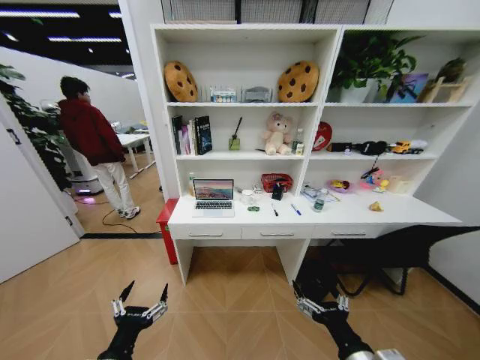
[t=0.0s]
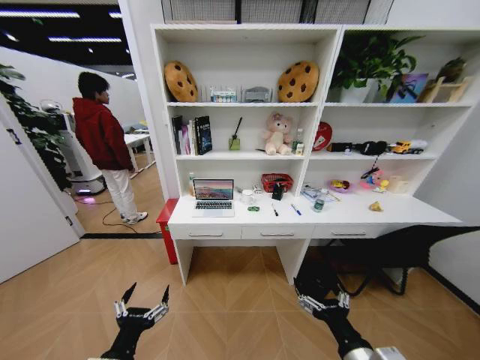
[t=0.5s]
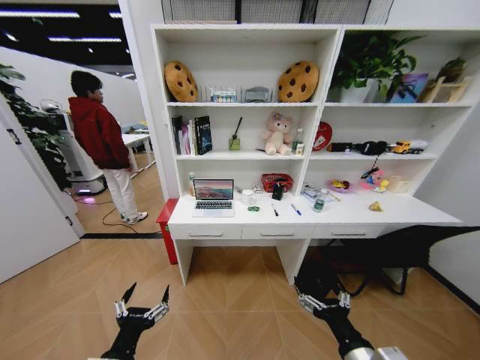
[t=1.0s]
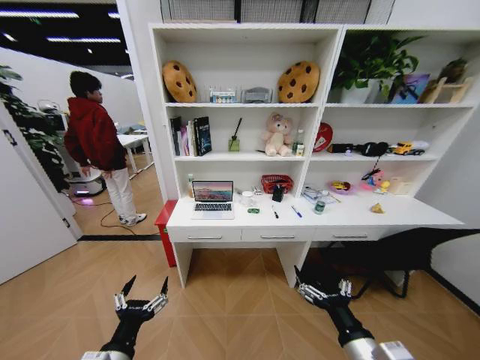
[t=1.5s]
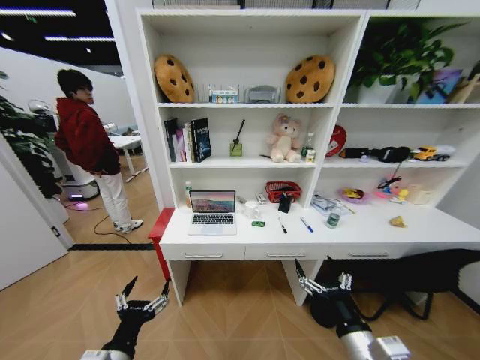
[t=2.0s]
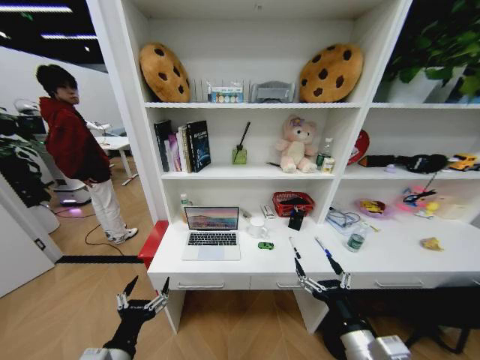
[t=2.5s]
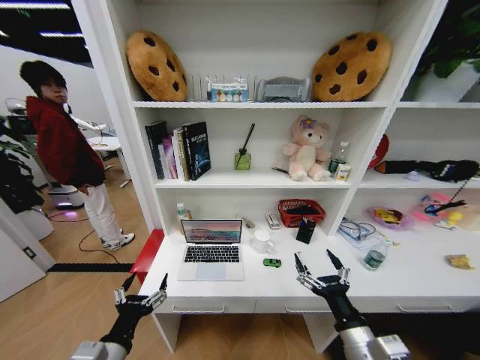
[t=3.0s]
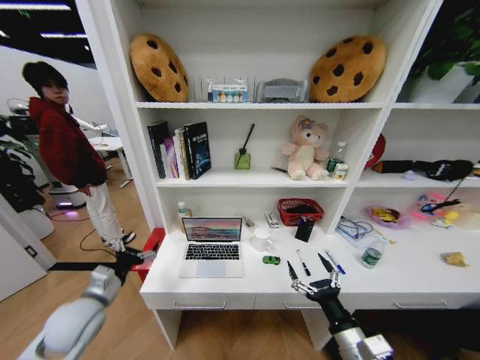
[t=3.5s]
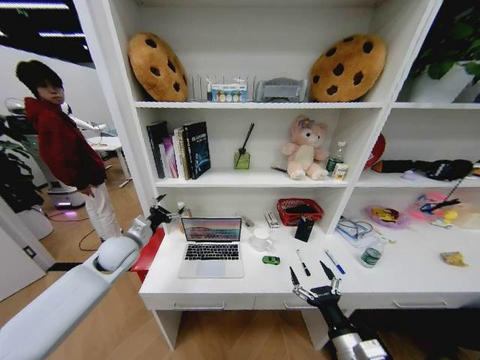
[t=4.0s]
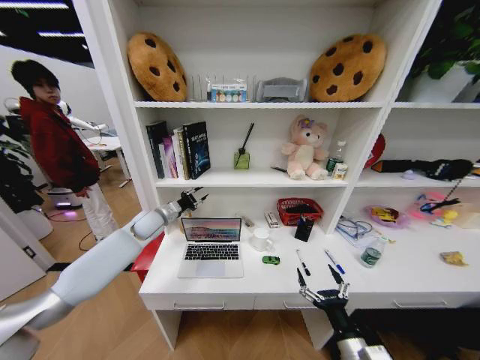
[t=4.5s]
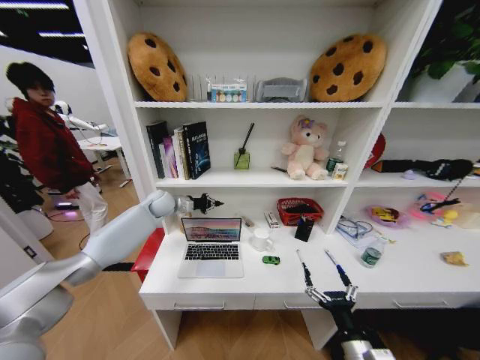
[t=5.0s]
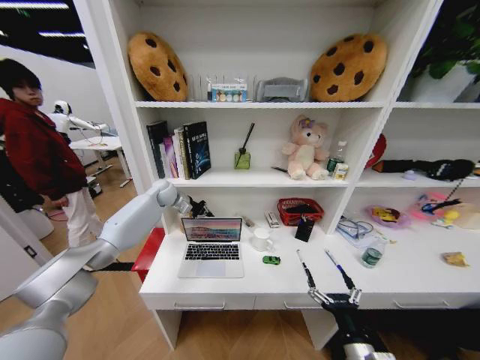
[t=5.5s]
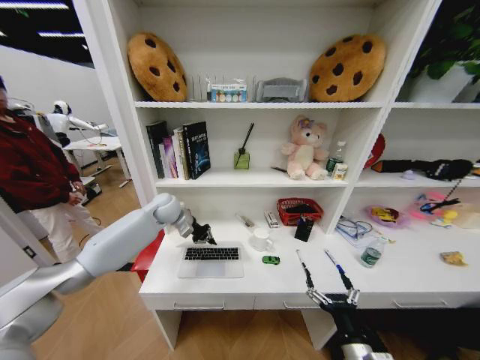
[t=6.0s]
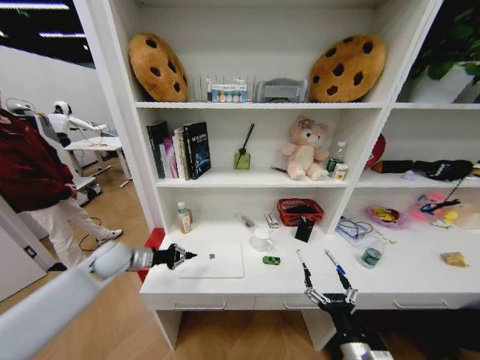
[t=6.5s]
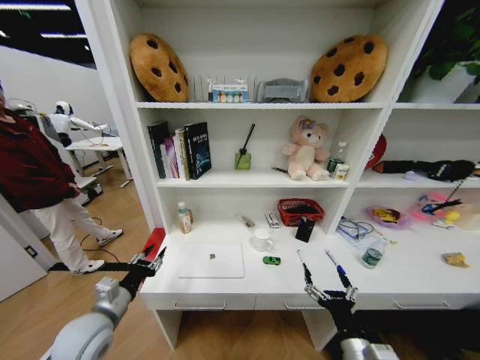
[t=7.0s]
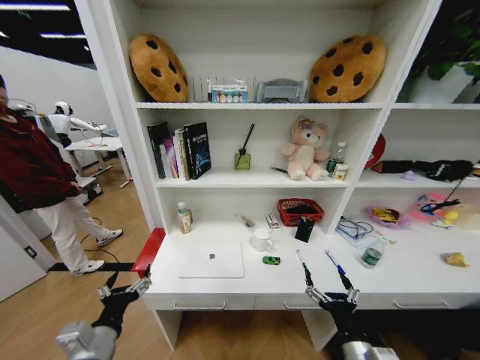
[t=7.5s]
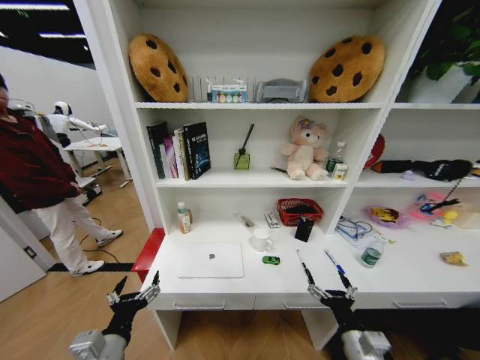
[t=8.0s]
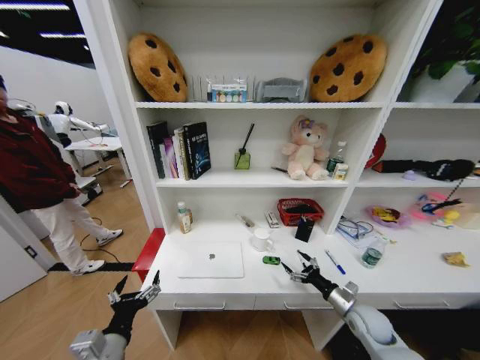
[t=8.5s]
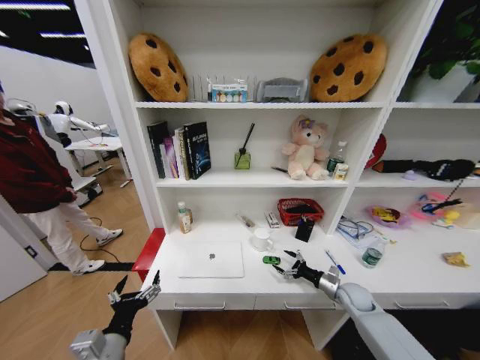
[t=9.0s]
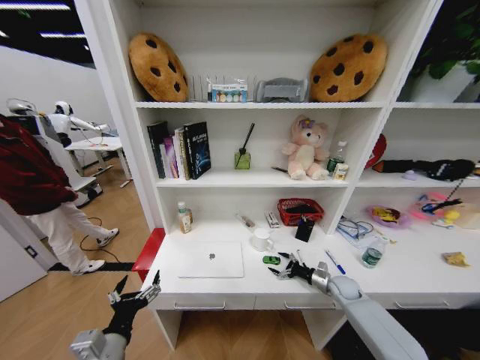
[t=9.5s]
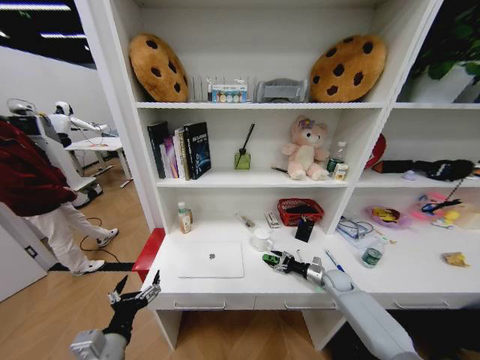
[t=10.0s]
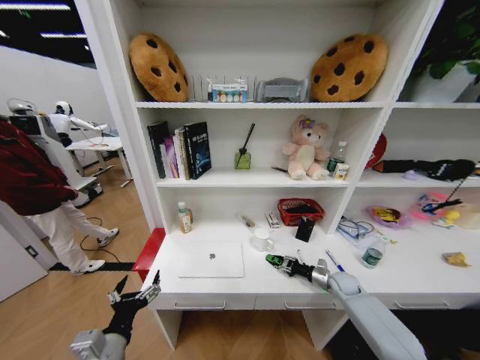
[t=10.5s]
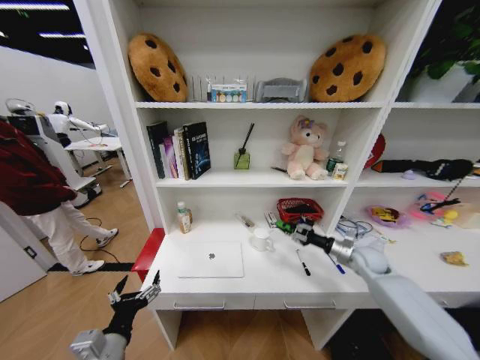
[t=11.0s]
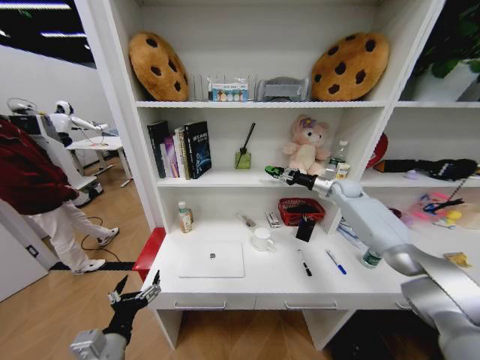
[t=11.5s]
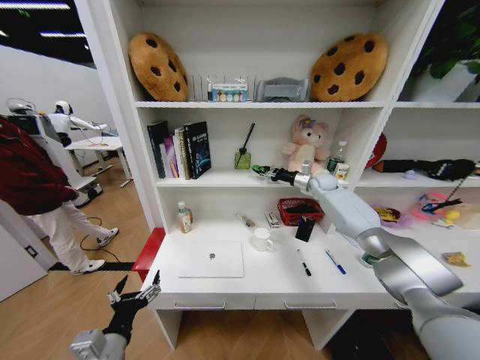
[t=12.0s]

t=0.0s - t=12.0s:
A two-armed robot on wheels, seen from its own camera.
Task of the whole recording: Organize the objects on the table.
t=2.0s - t=4.0s: The right gripper is displaced downward by roughly 5 cm, while the left gripper is displaced forward by roughly 30 cm.
t=4.0s - t=6.0s: The left gripper travels forward and to the right by some 20 cm, and closes its fingers.
t=6.0s - t=8.0s: The left gripper travels backward by approximately 40 cm, and opens its fingers.
t=8.0s - t=10.0s: The right gripper heads forward and to the right, covering about 30 cm.
t=10.0s - t=12.0s: The right gripper moves upward and forward, about 40 cm, and closes up.

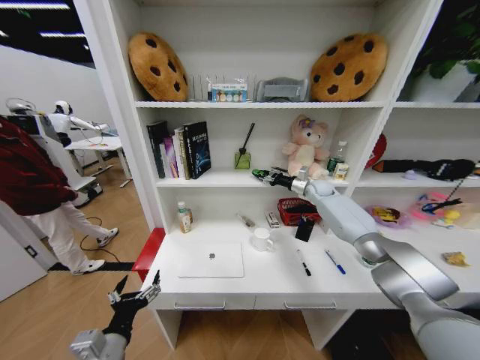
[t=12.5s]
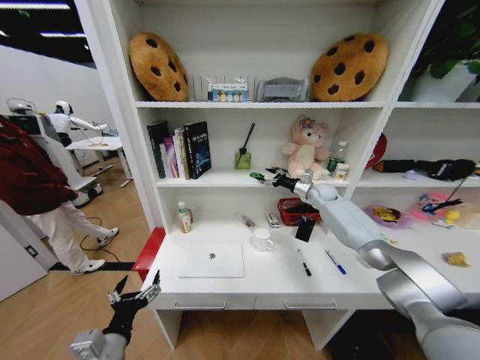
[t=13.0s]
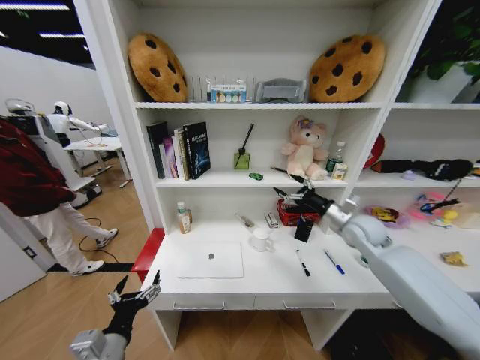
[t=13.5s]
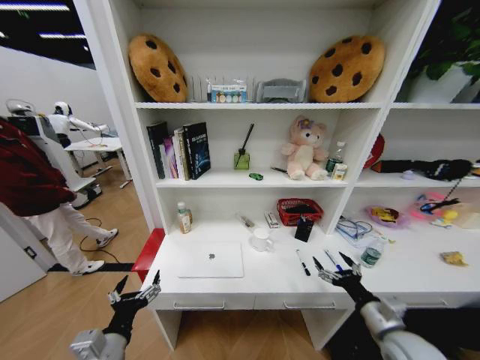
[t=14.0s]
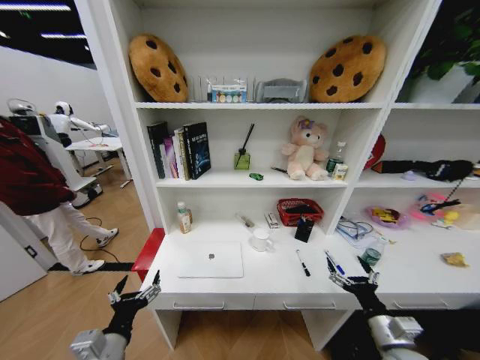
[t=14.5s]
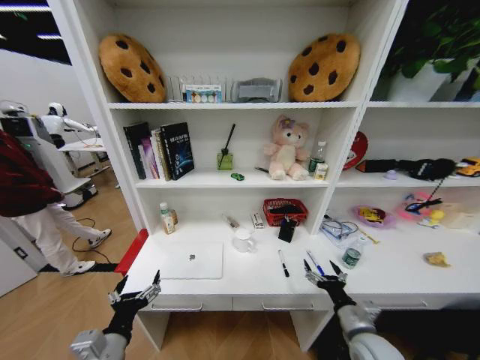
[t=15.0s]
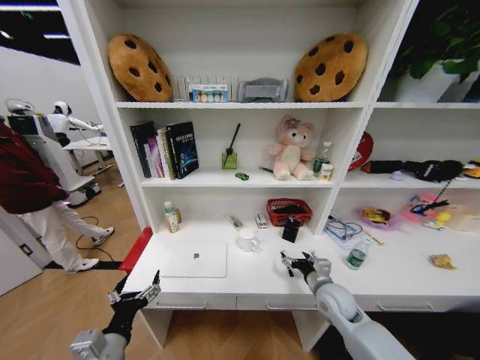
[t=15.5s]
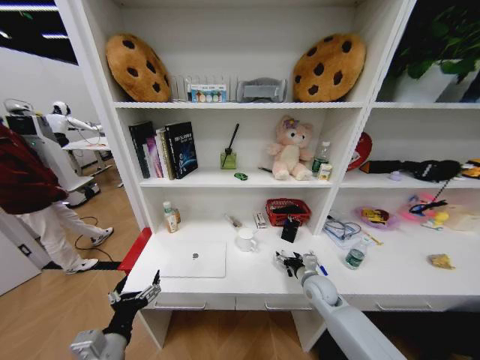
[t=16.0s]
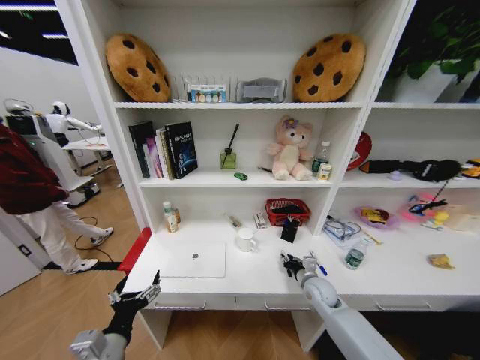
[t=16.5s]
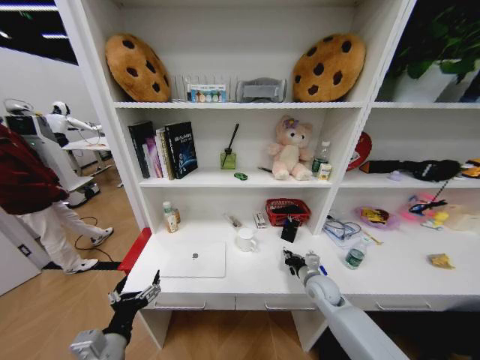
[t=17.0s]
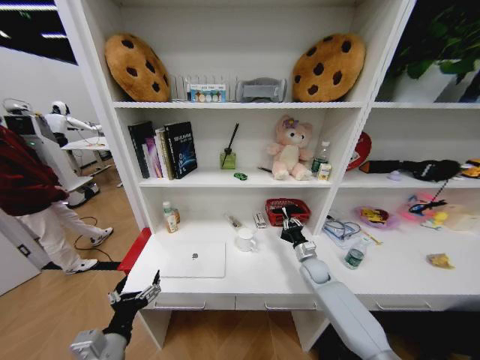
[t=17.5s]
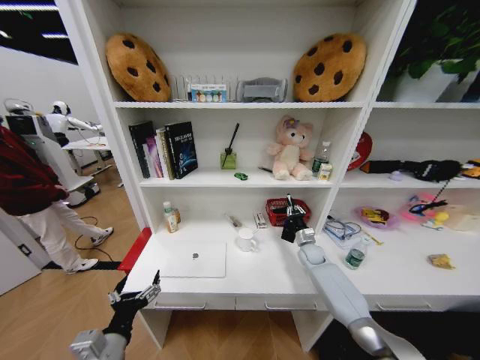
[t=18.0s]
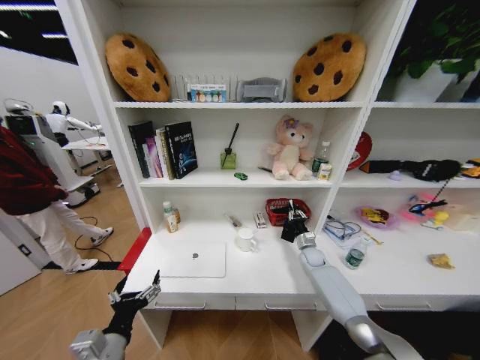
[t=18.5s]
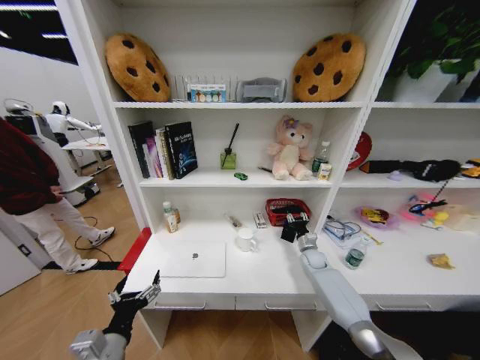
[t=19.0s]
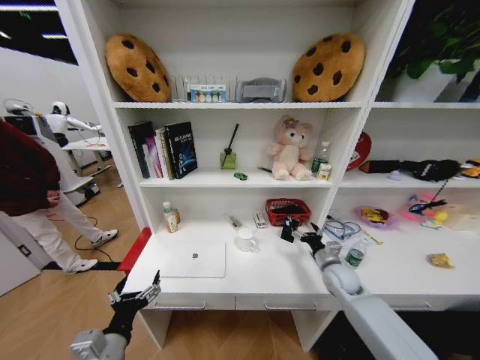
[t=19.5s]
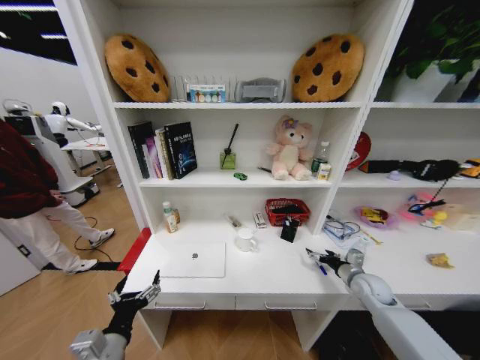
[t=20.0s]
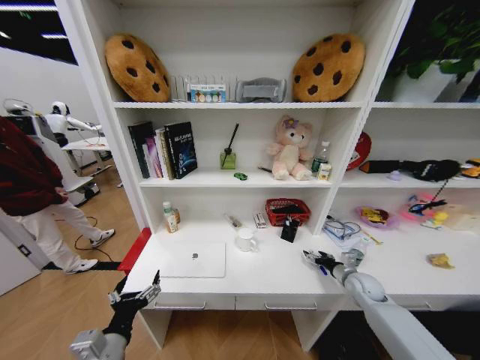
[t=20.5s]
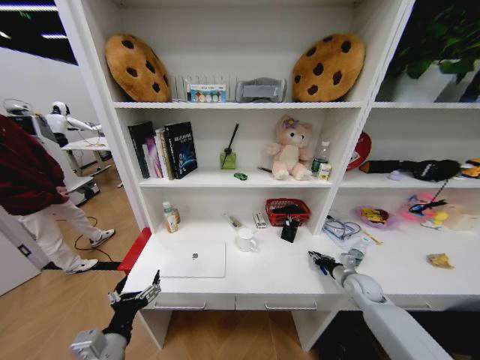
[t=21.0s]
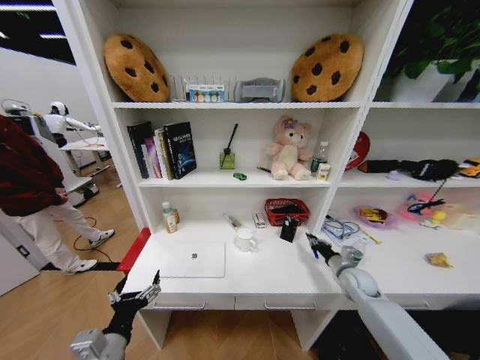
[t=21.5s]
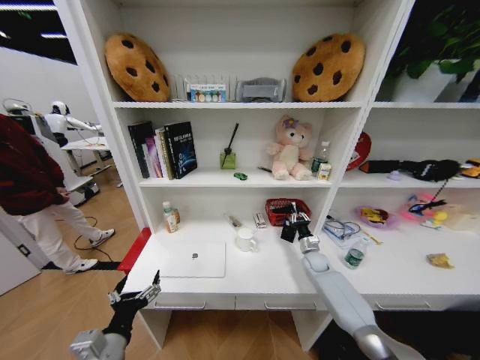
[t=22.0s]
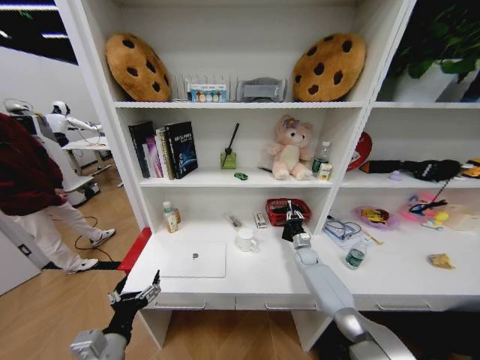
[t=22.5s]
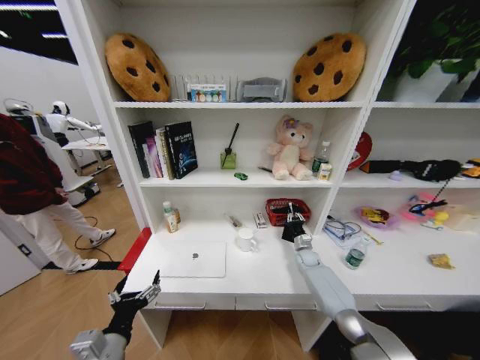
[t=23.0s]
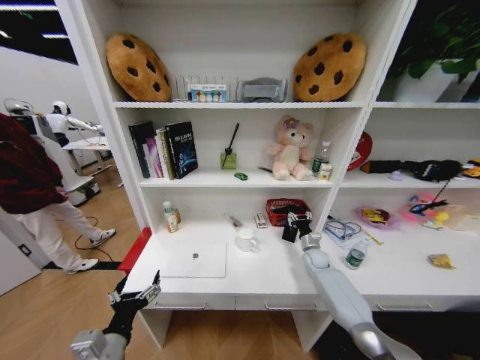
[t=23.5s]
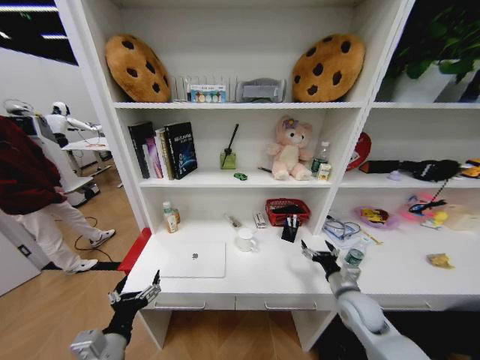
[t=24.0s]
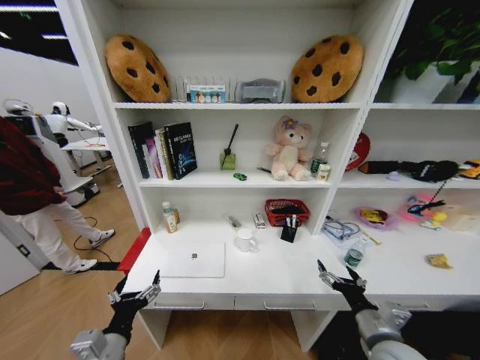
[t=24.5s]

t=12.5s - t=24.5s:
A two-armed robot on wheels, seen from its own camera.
Task of the whole recording: Organize the objects on the table.
t=12.5s - t=14.5s: The right gripper moves backward, approximately 50 cm, and opens.
t=14.5s - t=16.5s: The right gripper is displaced forward and to the left by about 20 cm, and closes.
t=16.5s - t=18.5s: The right gripper goes some 15 cm forward.
t=18.5s - t=20.5s: The right gripper travels backward and to the right by approximately 15 cm, and opens.
t=20.5s - t=22.5s: The right gripper is displaced forward, to the left and downward by about 20 cm, and closes its fingers.
t=22.5s - t=24.5s: The right gripper shifts approximately 40 cm backward and upward, and opens up.

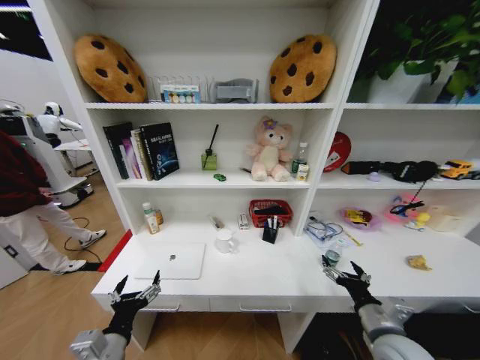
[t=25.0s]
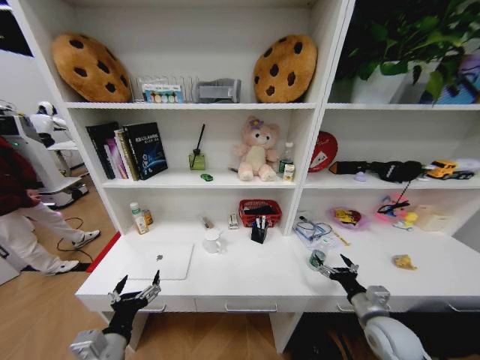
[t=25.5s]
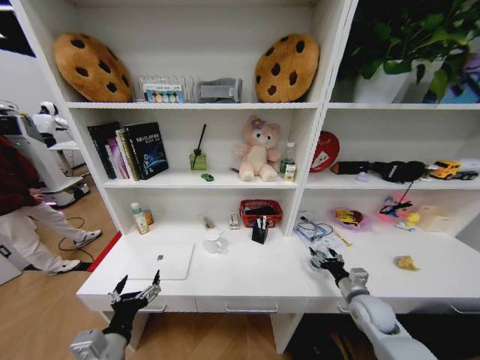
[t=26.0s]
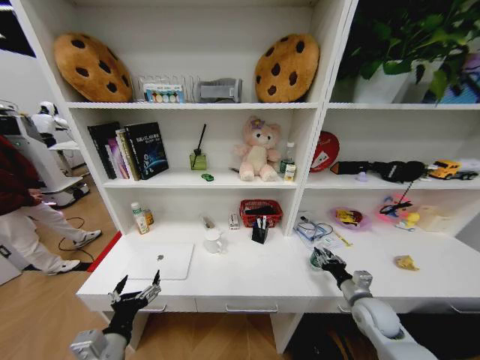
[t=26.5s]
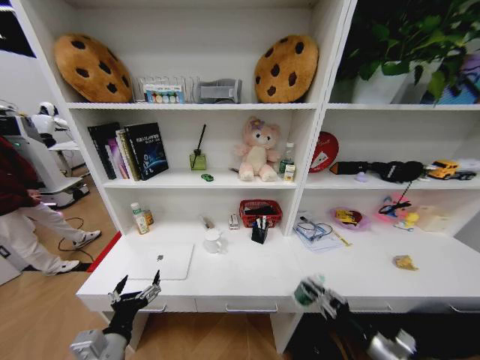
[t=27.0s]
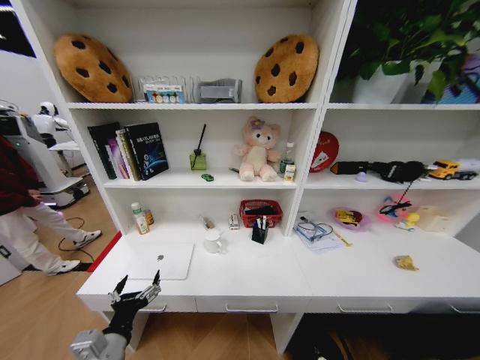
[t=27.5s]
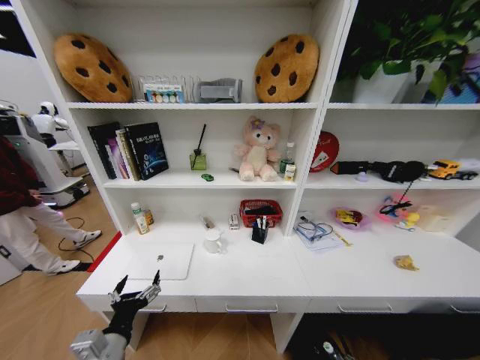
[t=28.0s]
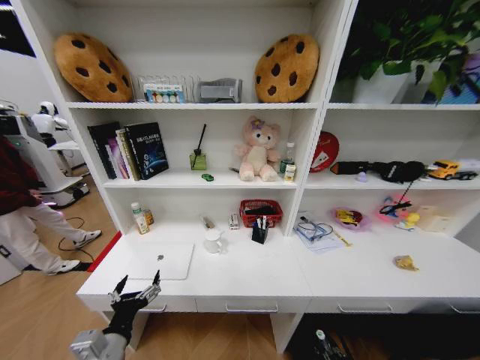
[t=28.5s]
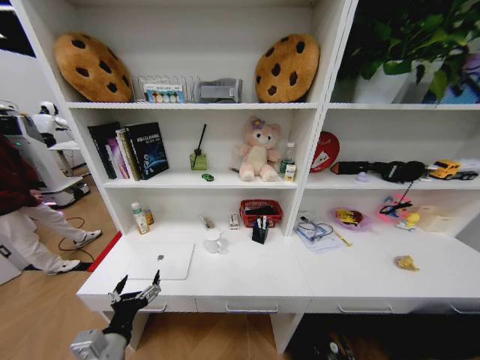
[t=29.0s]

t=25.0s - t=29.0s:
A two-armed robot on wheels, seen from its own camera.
Task of the whole recording: Organize the objects on the table.
t=25.0s - t=27.0s: The right gripper moves downward and to the right, some 15 cm, reaches about 10 cm forward, then returns, and closes up.
t=27.0s - t=29.0s: The right gripper shifts approximately 30 cm downward.
